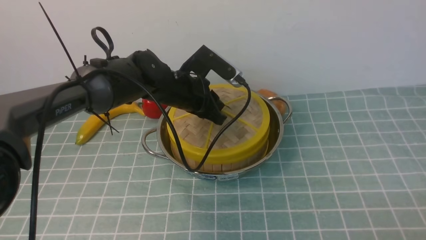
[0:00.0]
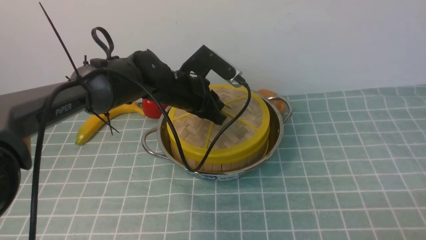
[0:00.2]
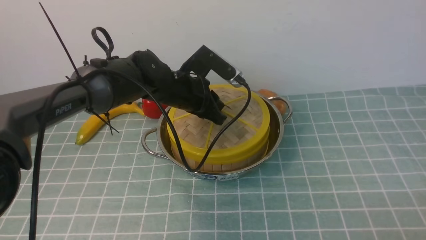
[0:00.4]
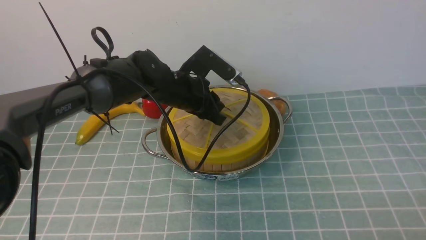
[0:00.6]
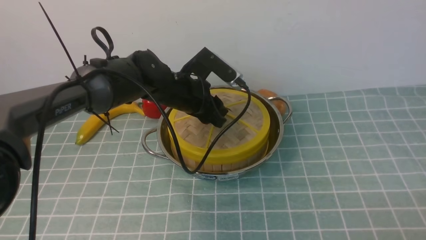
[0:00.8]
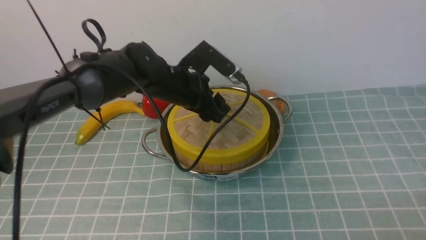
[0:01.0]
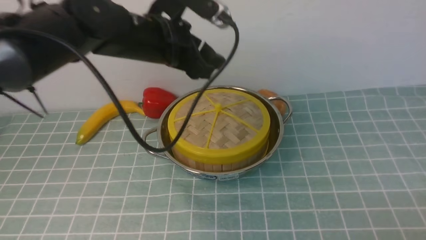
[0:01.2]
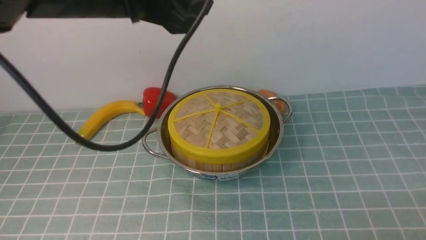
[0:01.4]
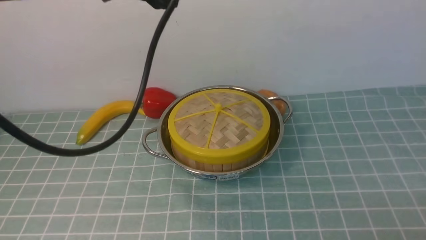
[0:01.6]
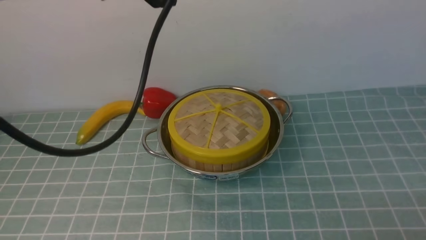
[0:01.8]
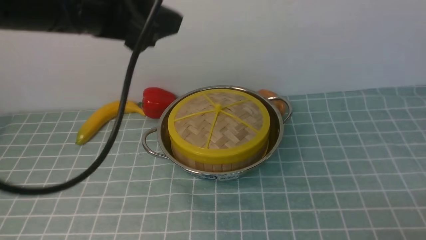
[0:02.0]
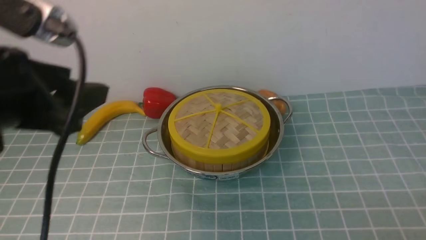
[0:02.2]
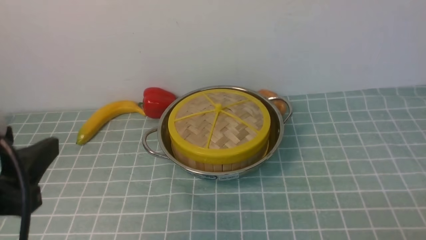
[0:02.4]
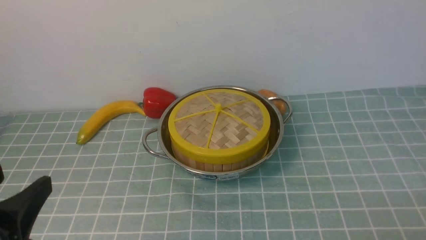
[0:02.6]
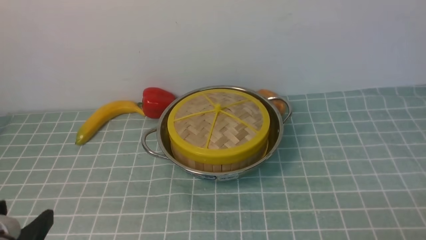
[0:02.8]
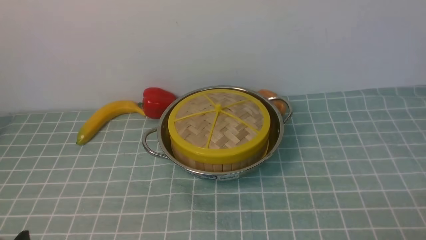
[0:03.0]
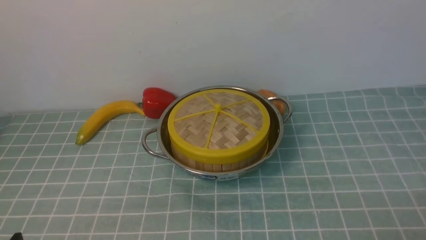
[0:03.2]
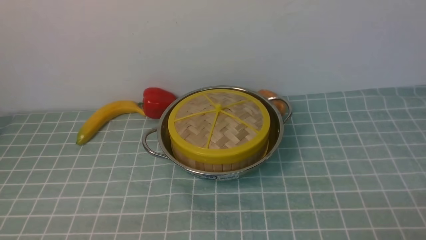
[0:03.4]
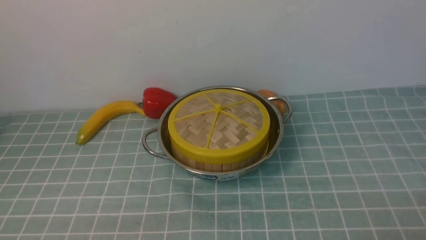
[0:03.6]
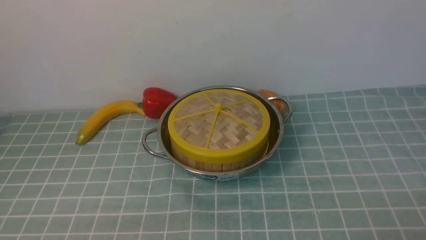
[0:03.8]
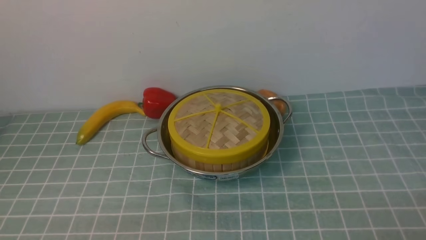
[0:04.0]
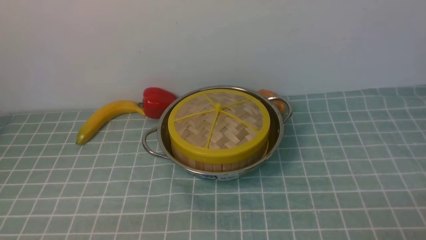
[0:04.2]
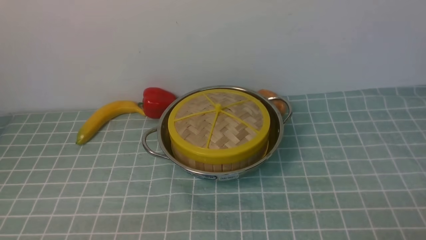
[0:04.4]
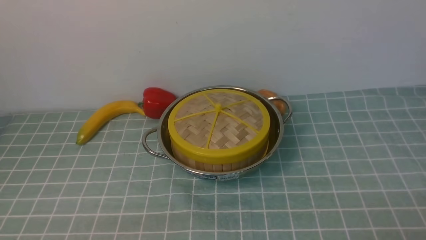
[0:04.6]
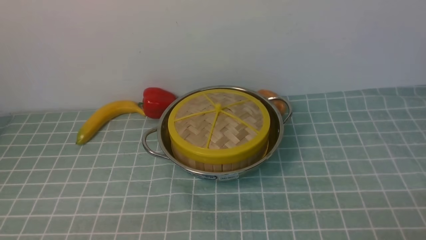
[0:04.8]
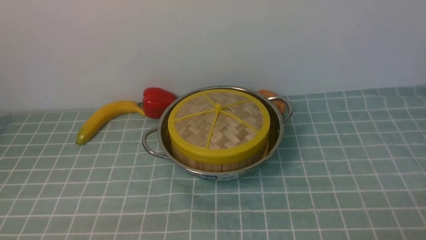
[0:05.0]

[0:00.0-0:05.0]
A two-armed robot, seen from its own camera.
Task of the whole recording: place the steamer in the pot on the blue tablecloth, and put the lid on the steamer.
0:00.0 to 0:01.6: The left gripper shifts roughly 25 cm upward and backward, and opens up.
0:01.6 to 0:03.4: The left gripper moves downward, backward and to the left, roughly 40 cm.
0:03.4 to 0:05.0: The two grippers keep their place.
